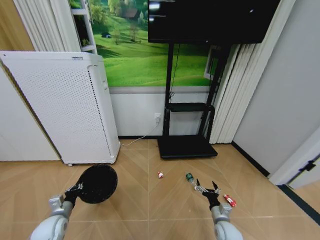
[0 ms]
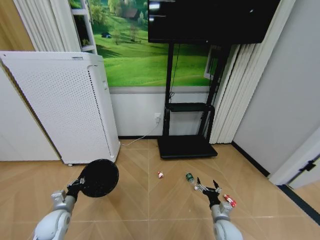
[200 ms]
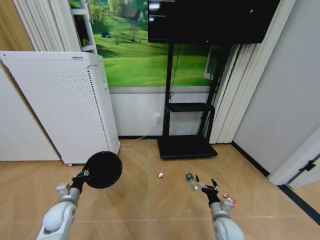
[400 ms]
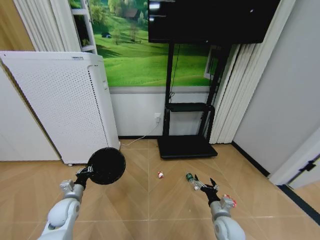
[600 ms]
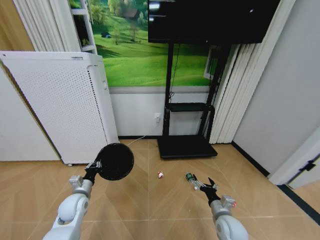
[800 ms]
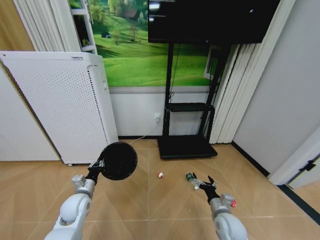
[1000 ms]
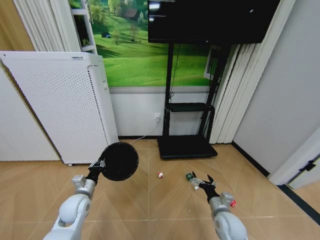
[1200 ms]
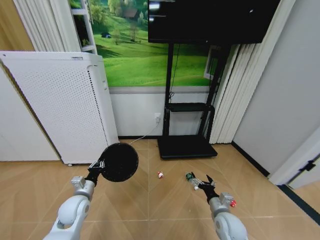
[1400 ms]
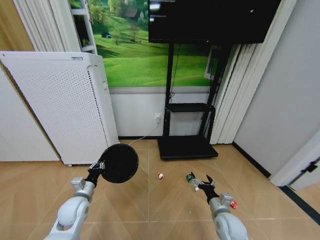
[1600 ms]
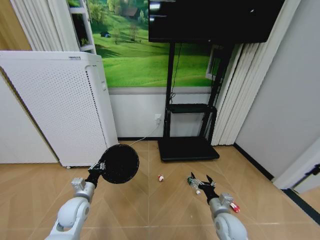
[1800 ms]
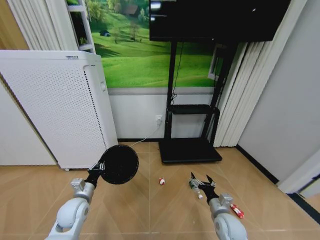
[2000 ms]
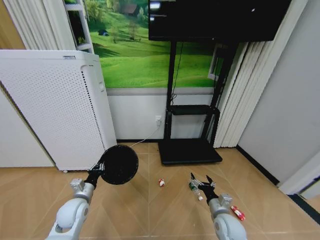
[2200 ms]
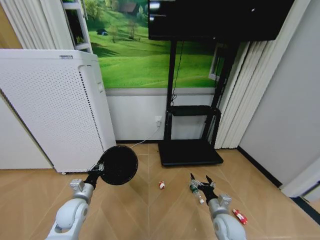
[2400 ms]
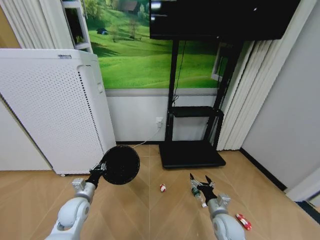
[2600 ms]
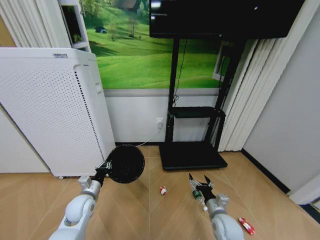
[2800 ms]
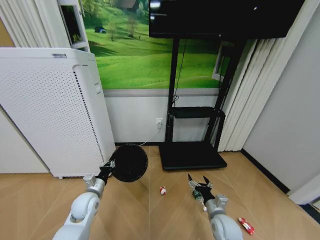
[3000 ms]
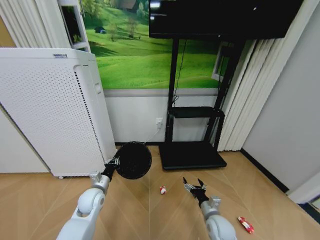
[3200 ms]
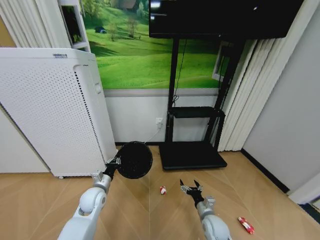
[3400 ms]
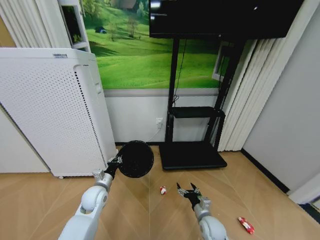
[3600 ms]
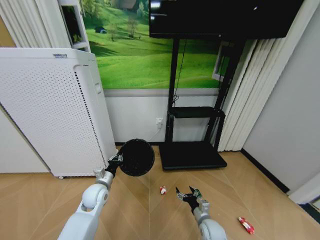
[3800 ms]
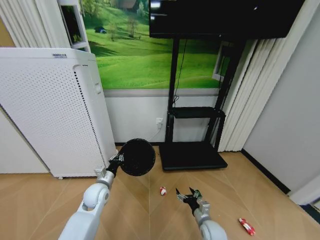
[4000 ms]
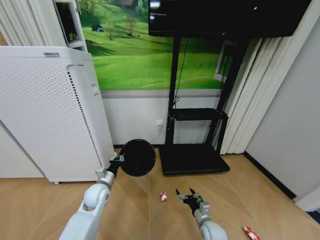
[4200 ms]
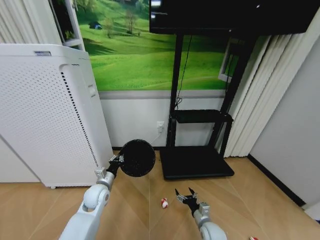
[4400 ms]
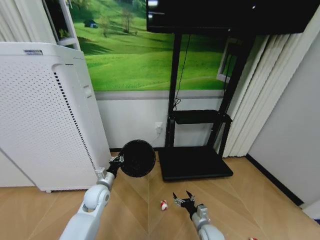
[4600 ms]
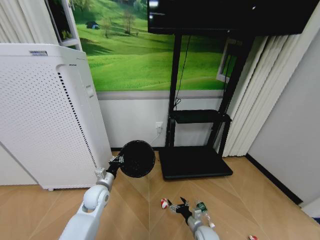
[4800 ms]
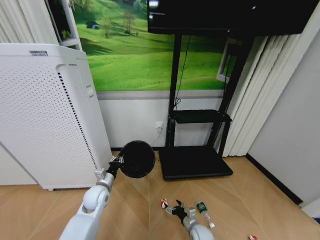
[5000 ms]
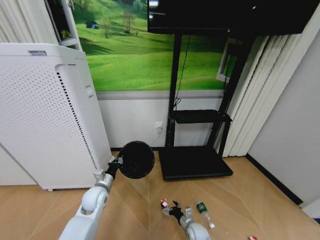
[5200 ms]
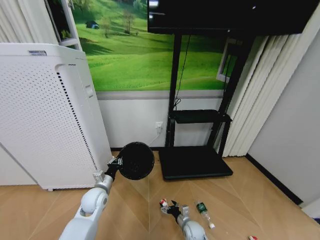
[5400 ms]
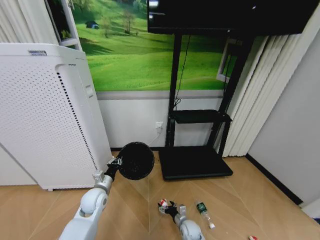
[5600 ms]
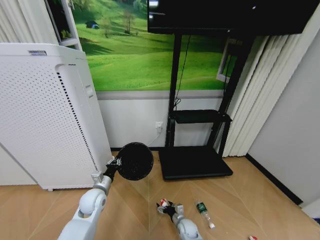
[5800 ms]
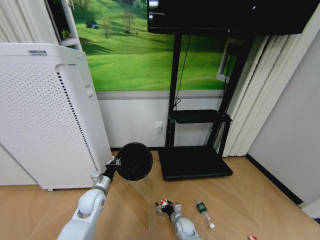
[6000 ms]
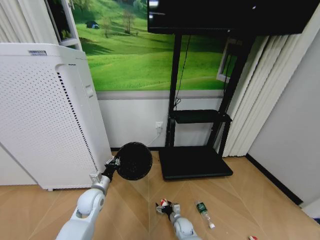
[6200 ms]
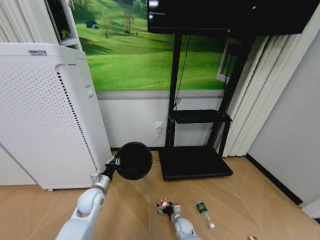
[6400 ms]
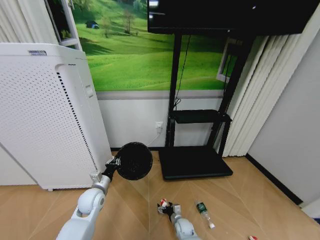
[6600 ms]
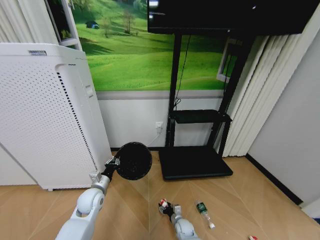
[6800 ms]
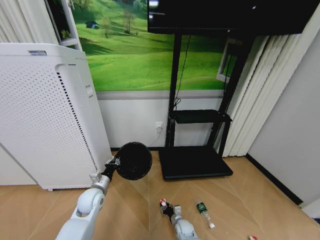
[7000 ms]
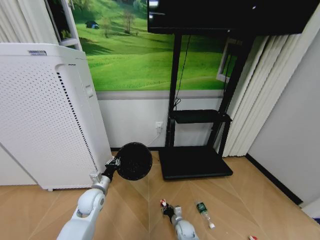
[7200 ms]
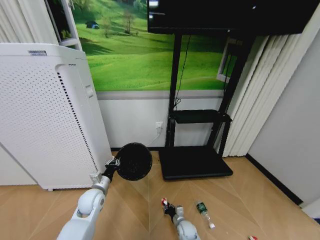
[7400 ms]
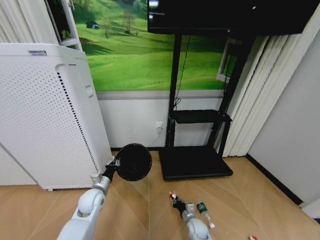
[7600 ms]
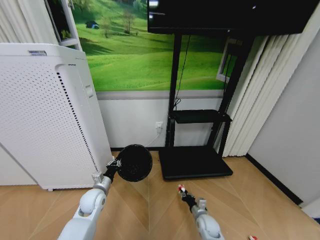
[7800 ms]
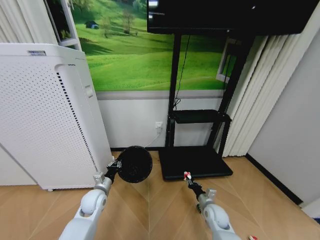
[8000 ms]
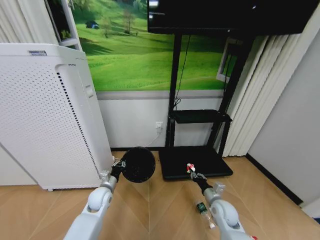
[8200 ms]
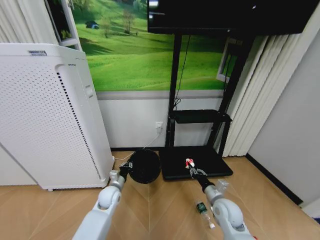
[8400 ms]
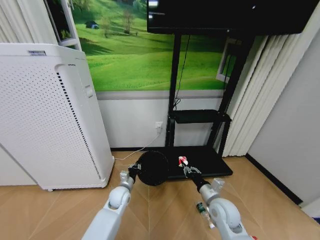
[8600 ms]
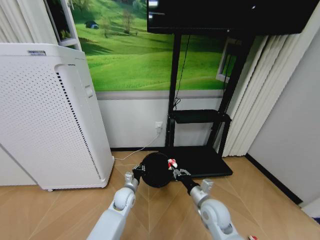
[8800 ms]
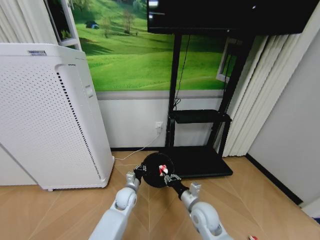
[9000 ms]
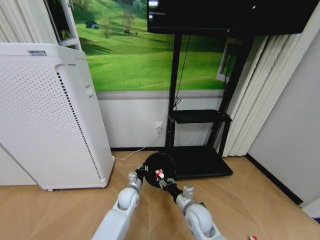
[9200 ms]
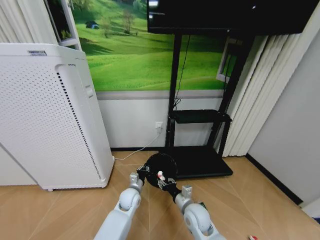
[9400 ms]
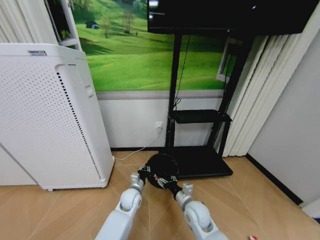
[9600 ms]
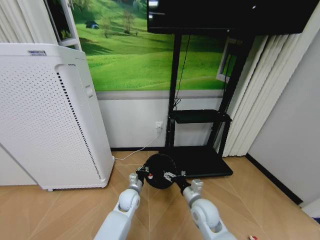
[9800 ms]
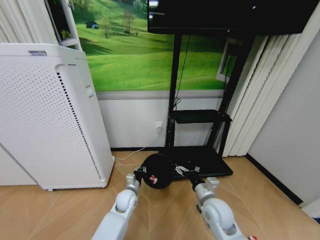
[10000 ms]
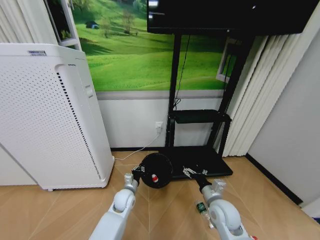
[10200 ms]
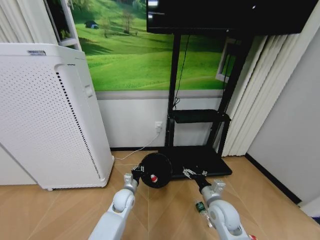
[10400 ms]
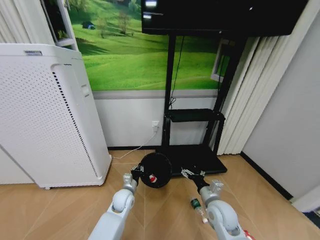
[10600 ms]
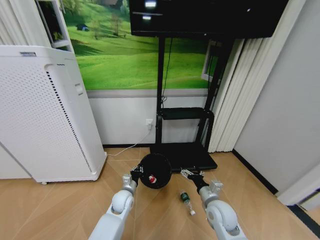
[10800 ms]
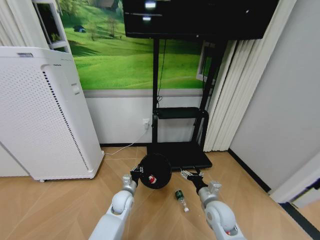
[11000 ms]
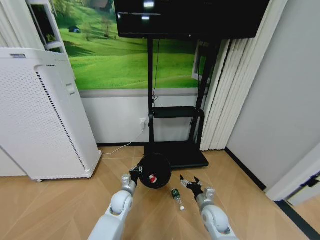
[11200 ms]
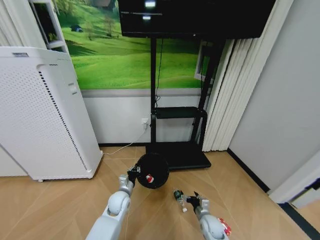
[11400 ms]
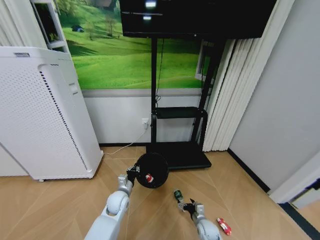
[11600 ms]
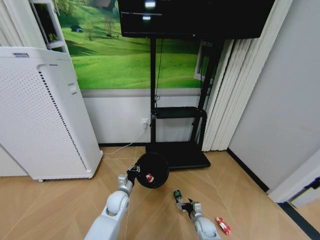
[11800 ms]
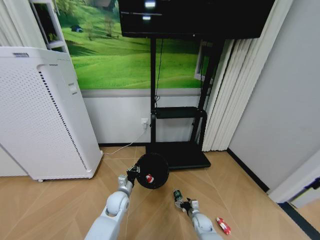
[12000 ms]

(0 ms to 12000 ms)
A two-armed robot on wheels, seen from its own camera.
Task of the whole recording: Pick up the trash bin and place the garbage on the floor into it.
0 ms - 1600 ms: The right gripper is displaced upward by approximately 10 cm. The left gripper is displaced to the right, upward and forward by some 10 cm.
3000 ms - 4400 ms: The right gripper is displaced downward by roughly 10 cm.
4400 ms - 6000 ms: The right gripper heads downward and to the left, covering some 15 cm.
6000 ms - 7600 ms: The right gripper shifts by about 5 cm, and closes up.
7600 ms - 9000 ms: The right gripper goes approximately 20 cm upward. Meanwhile the left gripper heads to the right and downward, covering roughly 15 cm.
9000 ms - 10400 ms: The right gripper shifts roughly 5 cm to the right, and opens.
10400 ms - 12000 ms: The right gripper goes some 25 cm downward.

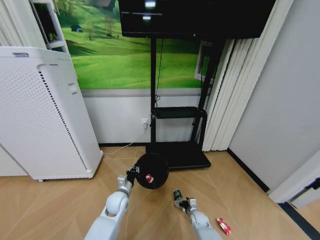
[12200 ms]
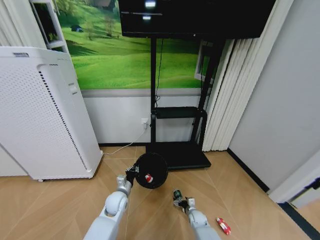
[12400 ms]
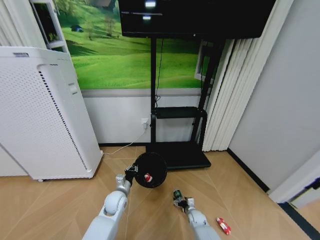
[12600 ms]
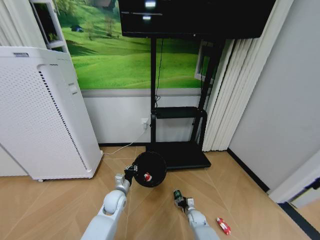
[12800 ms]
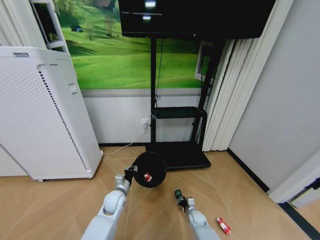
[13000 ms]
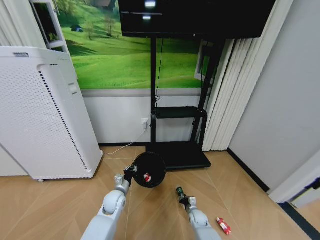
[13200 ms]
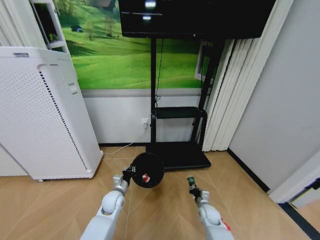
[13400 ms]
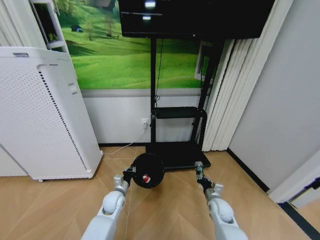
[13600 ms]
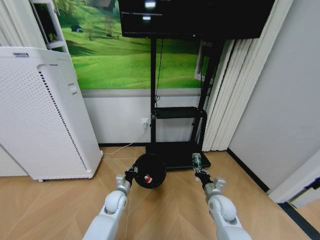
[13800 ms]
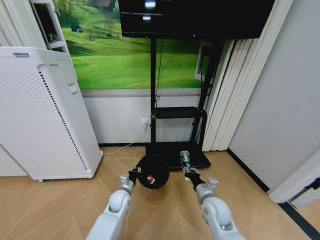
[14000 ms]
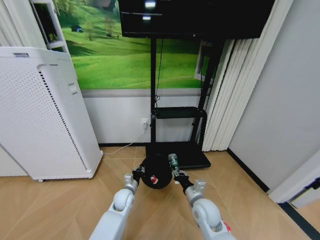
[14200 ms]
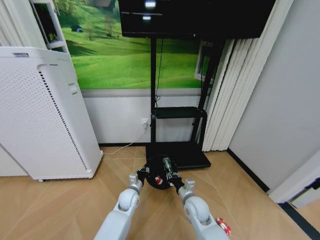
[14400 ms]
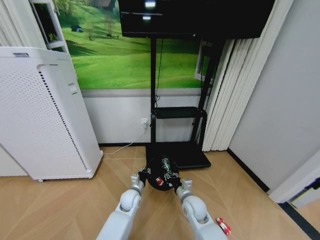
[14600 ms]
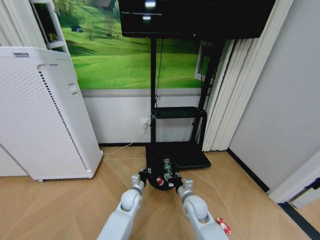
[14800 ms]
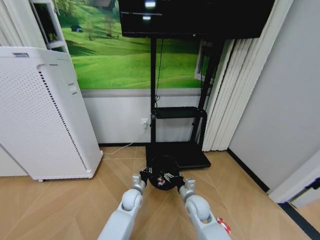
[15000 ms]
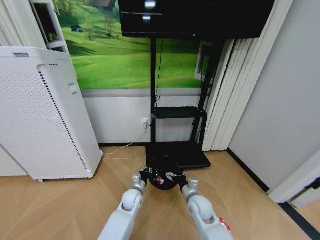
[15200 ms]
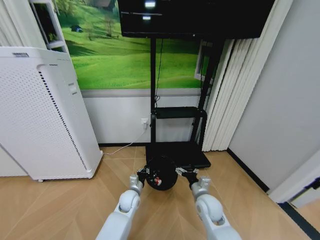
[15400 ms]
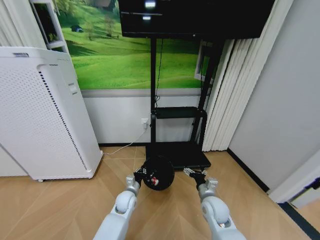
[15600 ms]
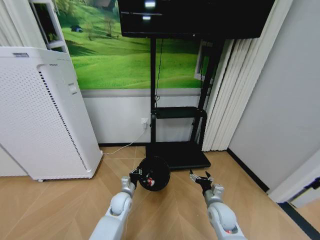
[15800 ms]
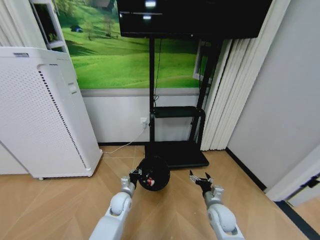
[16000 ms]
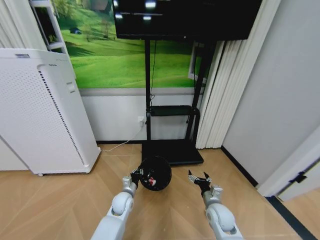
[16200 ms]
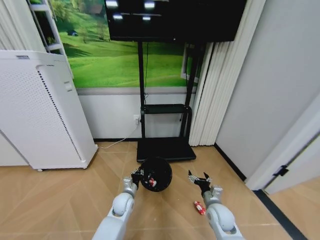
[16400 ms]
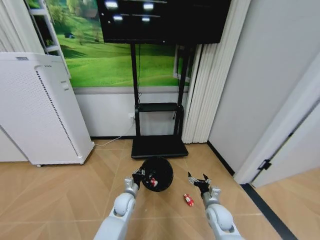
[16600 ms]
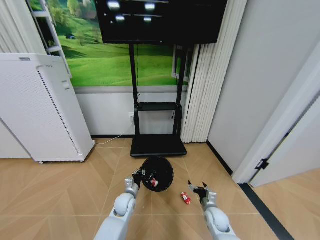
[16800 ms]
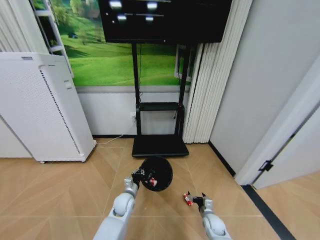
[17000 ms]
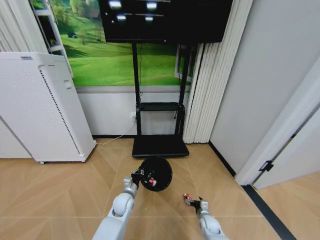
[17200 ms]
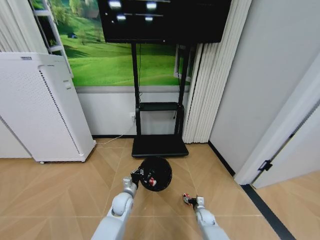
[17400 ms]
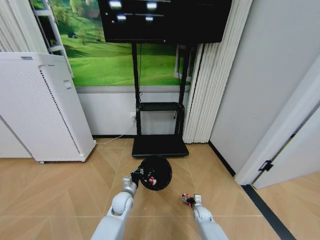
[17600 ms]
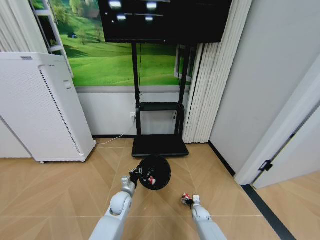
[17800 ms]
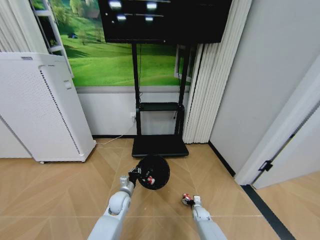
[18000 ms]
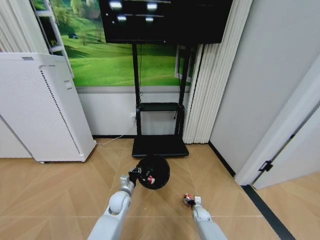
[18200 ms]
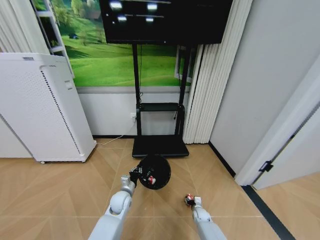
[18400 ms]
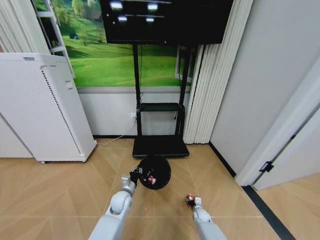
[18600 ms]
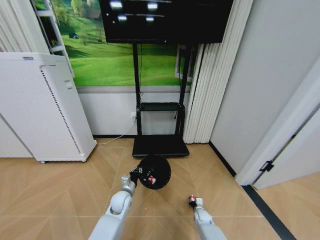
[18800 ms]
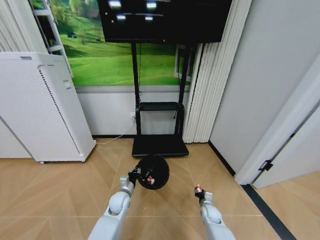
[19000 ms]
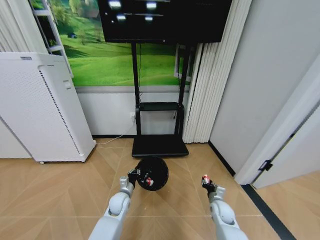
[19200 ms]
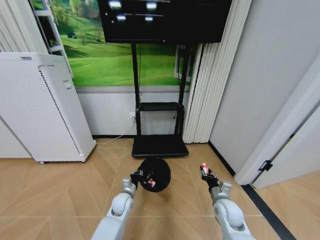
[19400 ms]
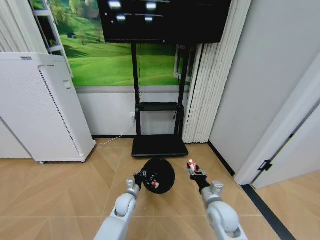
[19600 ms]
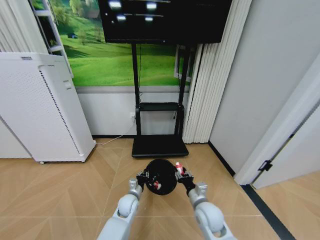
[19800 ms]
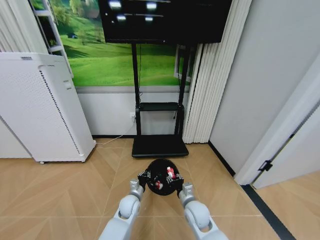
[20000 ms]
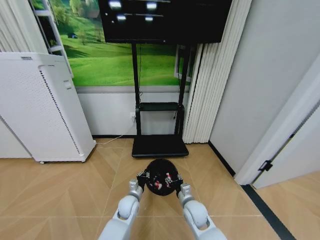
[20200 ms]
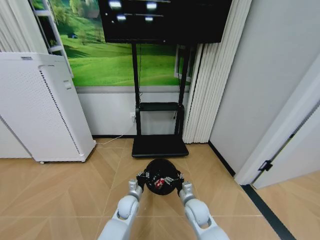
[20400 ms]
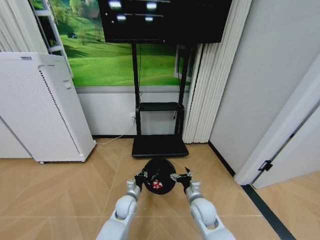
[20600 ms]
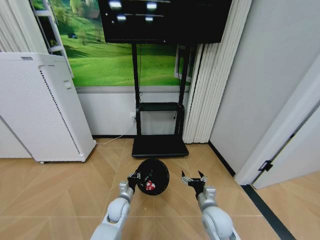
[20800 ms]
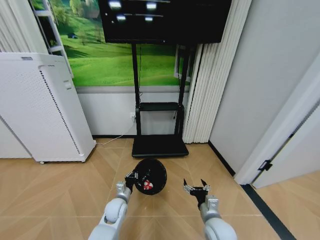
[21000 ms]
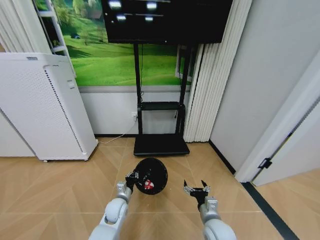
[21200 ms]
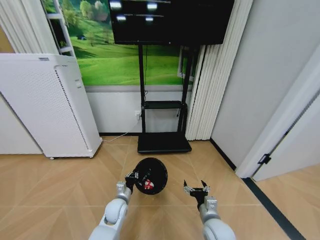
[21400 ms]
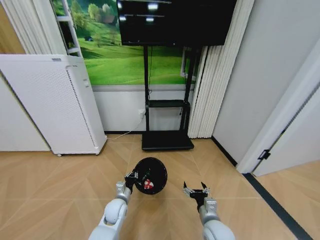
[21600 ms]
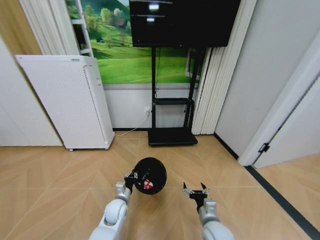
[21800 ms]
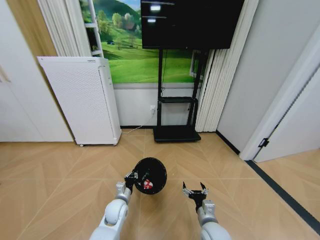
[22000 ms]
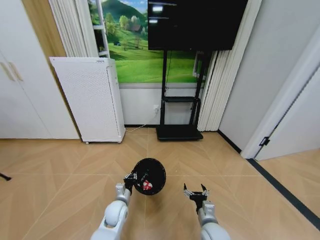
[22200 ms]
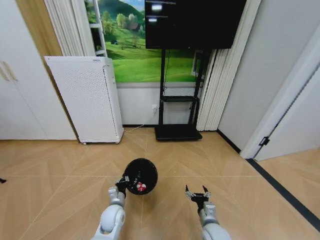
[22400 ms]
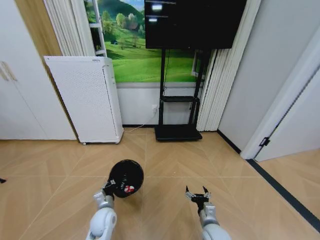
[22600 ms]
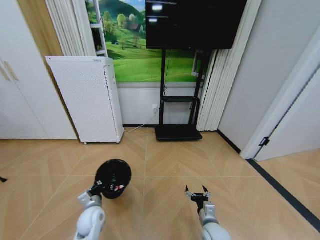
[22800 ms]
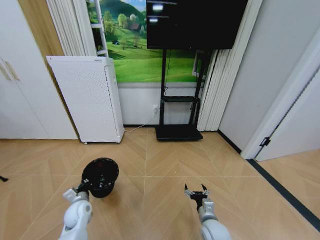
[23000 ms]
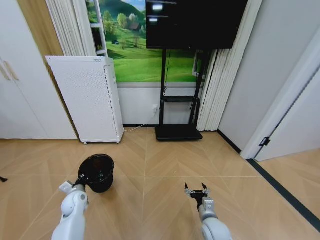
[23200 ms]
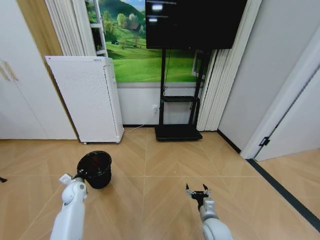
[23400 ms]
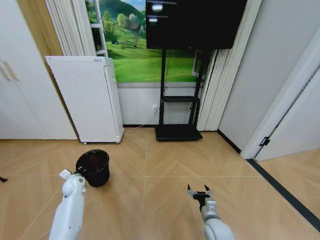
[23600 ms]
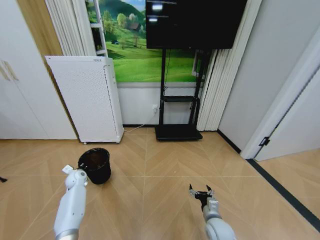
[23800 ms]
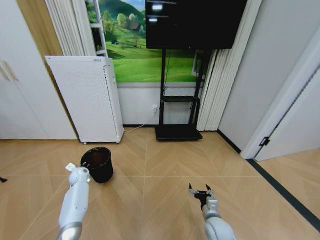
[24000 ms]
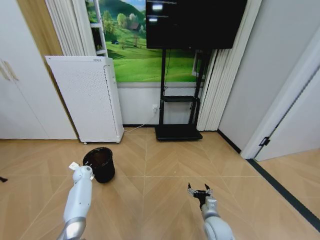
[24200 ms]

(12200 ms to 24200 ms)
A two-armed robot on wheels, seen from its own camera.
Task of the whole recording: Pick up the trash bin and place the garbage on the floor into it.
12200 ms - 13800 ms: The right gripper moves upward, approximately 25 cm, and closes its fingers.
13800 ms - 15200 ms: The left gripper shifts some 5 cm to the right; the right gripper travels to the left by about 10 cm, and opens its fingers.
15200 ms - 16600 ms: The right gripper travels to the right and downward by approximately 10 cm.
16600 ms - 18200 ms: The right gripper travels downward by approximately 20 cm.
18200 ms - 19800 ms: The right gripper is displaced upward by roughly 30 cm, and closes its fingers.
19800 ms - 21200 ms: The left gripper changes place by some 5 cm. Meanwhile the right gripper shifts some 5 cm backward, and opens up.
21200 ms - 22600 ms: The right gripper shifts about 5 cm downward. Meanwhile the left gripper shifts by roughly 5 cm.
22600 ms - 24200 ms: The left gripper shifts approximately 30 cm forward and to the left.
